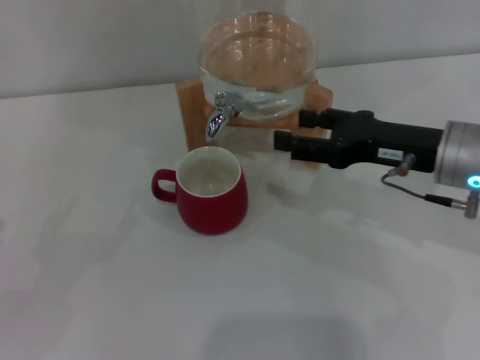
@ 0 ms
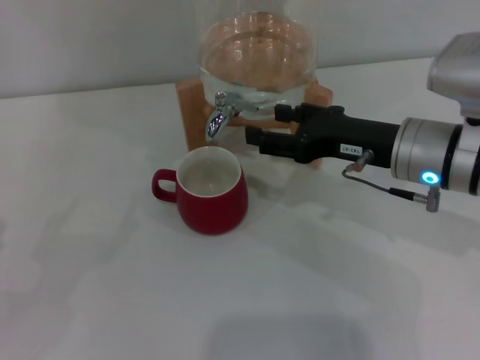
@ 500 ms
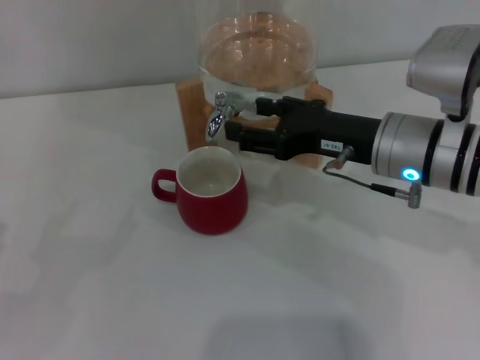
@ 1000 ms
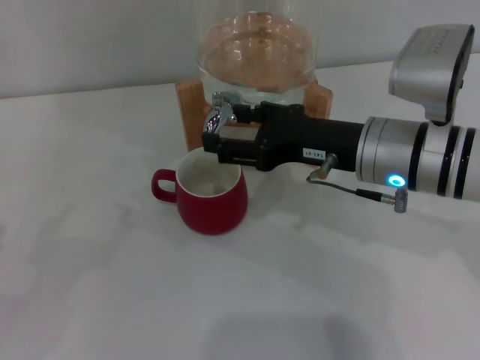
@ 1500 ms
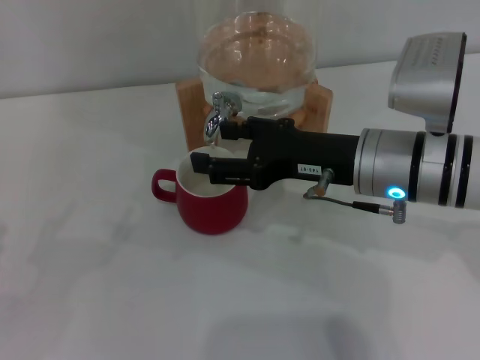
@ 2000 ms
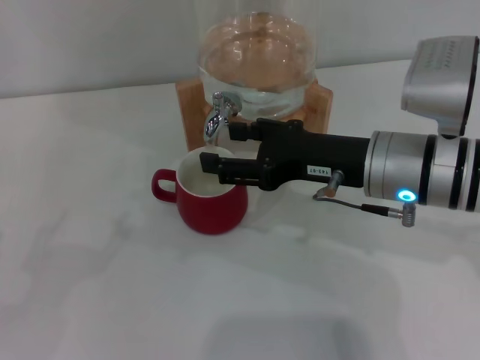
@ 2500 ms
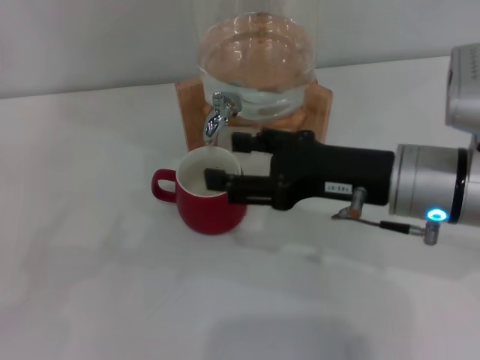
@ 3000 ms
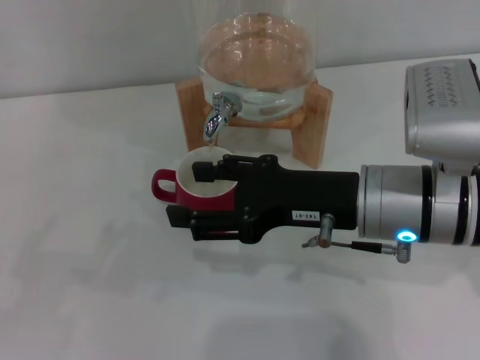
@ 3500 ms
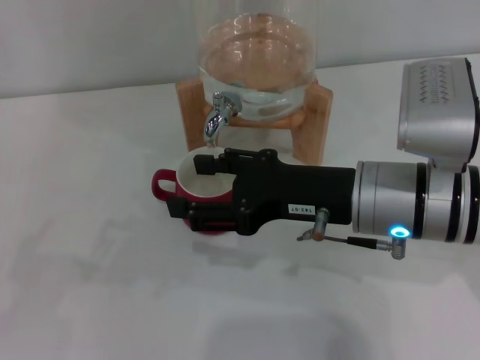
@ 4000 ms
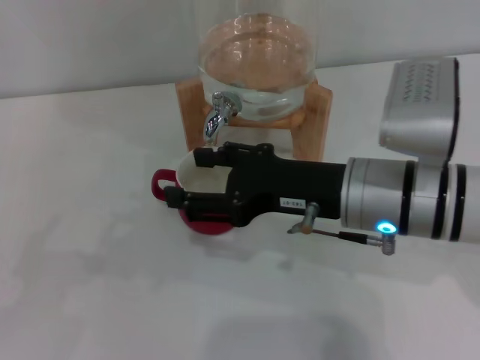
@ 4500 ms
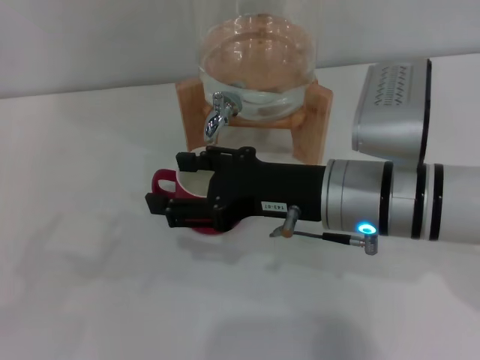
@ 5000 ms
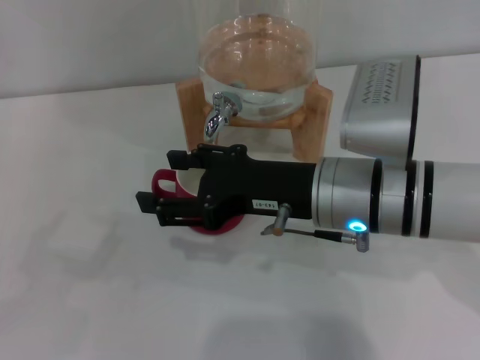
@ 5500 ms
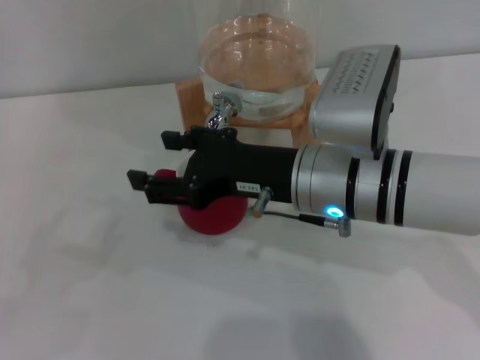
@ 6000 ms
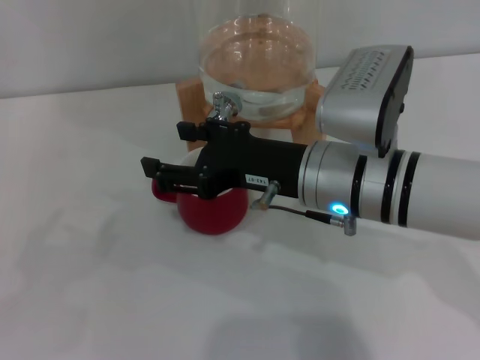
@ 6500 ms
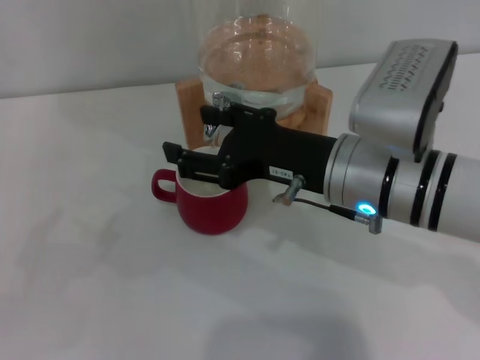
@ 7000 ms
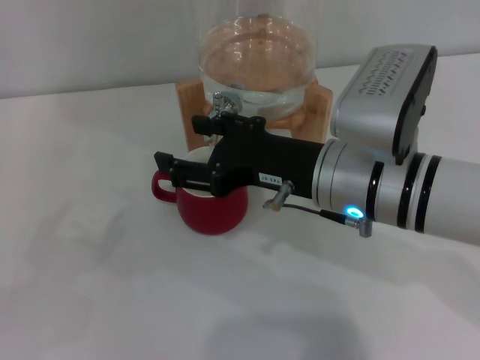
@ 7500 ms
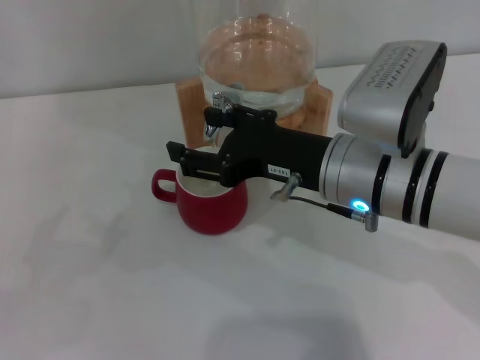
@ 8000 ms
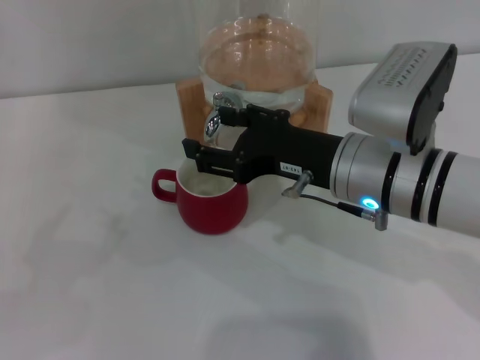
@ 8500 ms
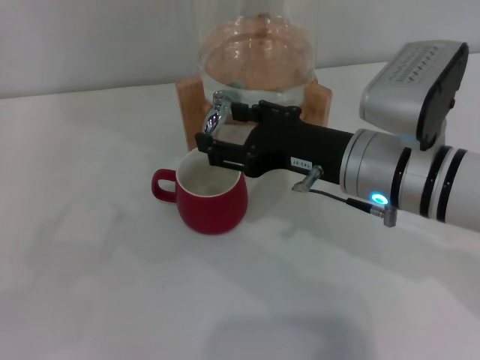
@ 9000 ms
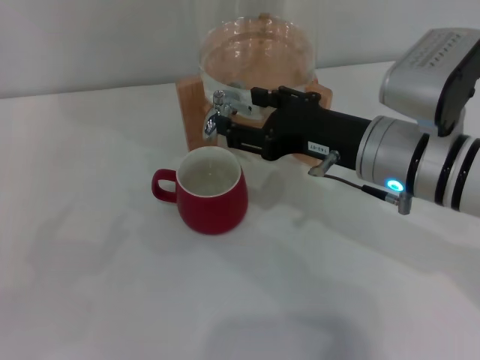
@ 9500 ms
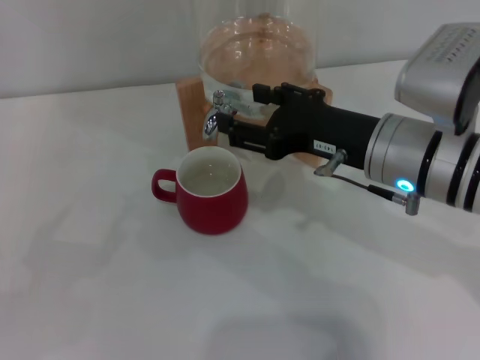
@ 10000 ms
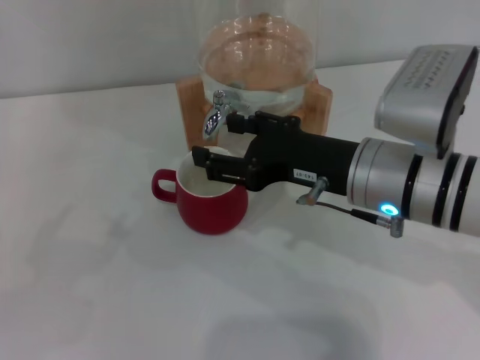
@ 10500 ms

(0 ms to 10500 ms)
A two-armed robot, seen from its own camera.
Task of the whole recording: the left gripper pick up the red cup and place it horizontally under the faucet, the right gripper turn on the faucet to fill the cup, and then turn off the faucet.
Step, 0 ms - 3500 ms: Open the dispenser valve and fill the cup with water with the right gripper.
0 ms - 2000 ms: The right gripper travels to the left by some 10 cm.
2000 ms - 10500 ms: The grippers stay close to where they were, moving slightly.

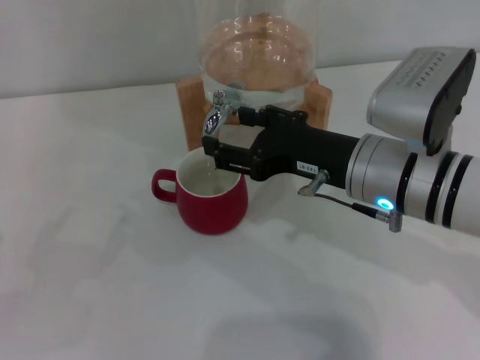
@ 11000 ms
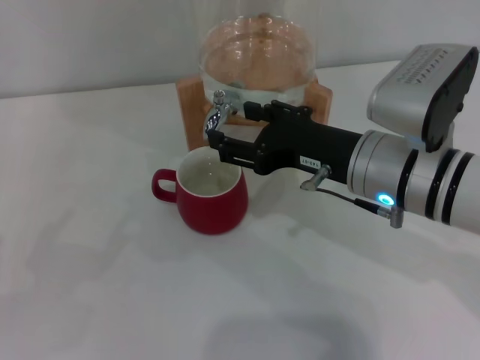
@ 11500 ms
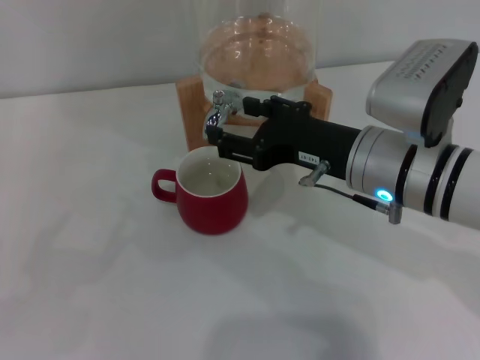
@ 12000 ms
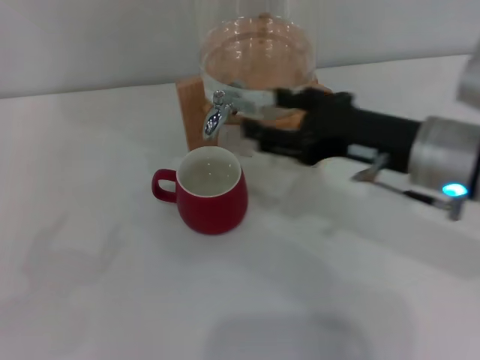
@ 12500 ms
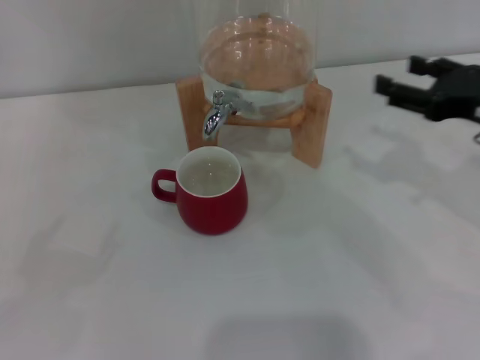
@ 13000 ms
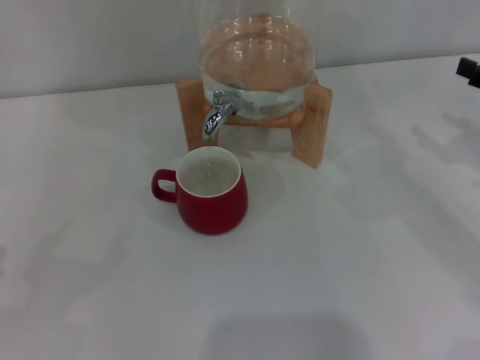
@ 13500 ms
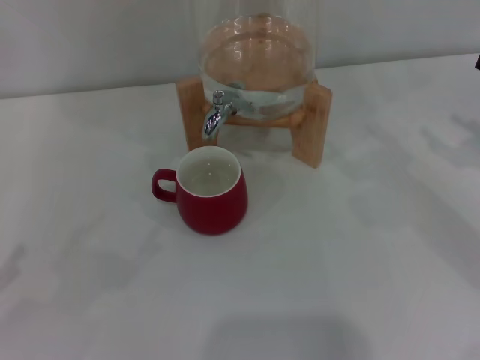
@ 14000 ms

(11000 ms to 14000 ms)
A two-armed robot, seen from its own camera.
Task of the whole recording: the left gripper pick up the red cup and place it horizontally under the faucet, the right gripper turn on the faucet to fill the cup, and then turn off the faucet.
11000 ms - 12500 ms: The right gripper ends up some 5 cm from where it was.
12500 ms - 14000 ms: The right gripper shifts approximately 20 cm to the right.
